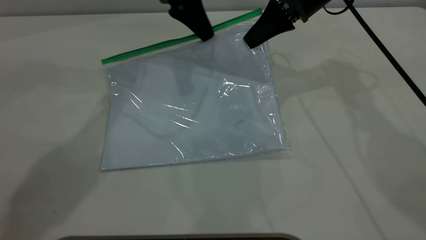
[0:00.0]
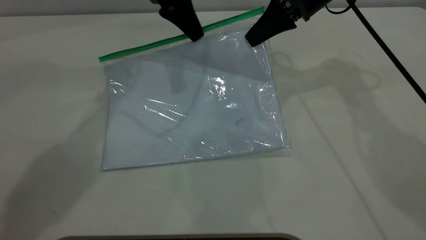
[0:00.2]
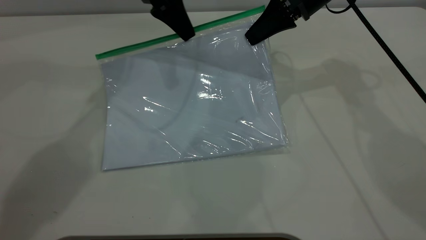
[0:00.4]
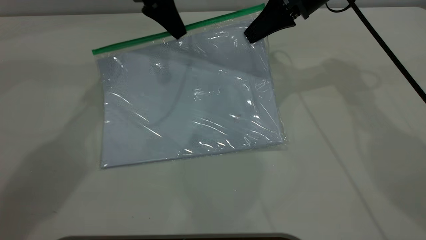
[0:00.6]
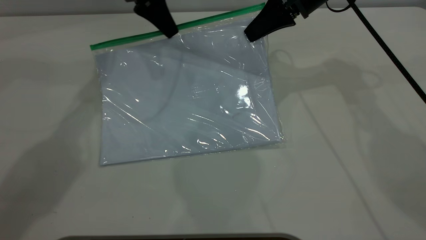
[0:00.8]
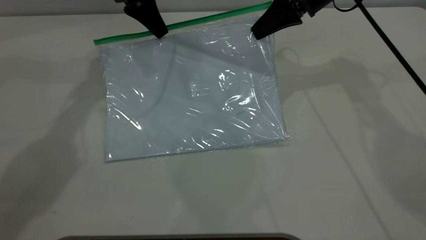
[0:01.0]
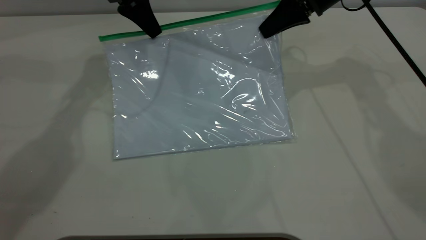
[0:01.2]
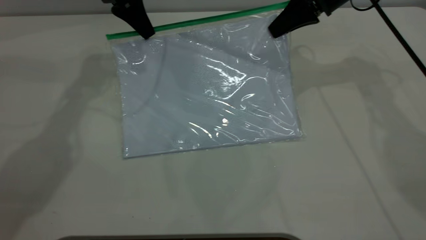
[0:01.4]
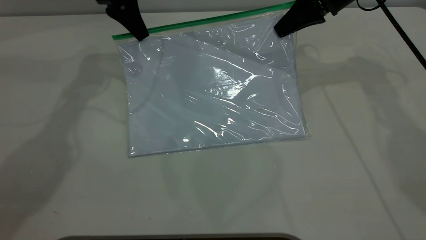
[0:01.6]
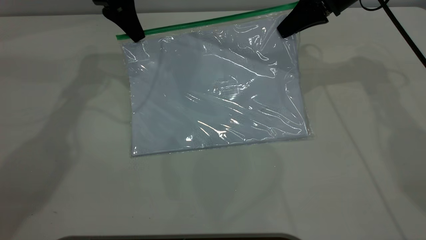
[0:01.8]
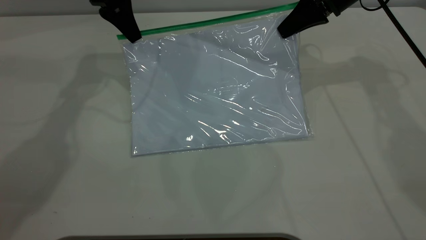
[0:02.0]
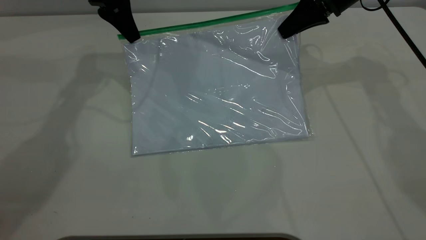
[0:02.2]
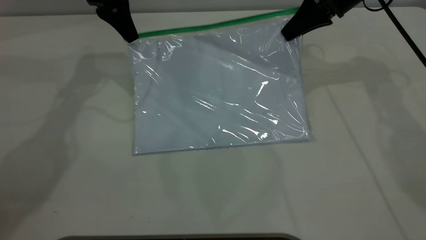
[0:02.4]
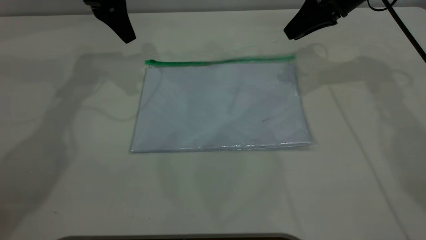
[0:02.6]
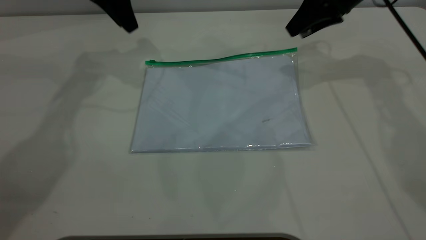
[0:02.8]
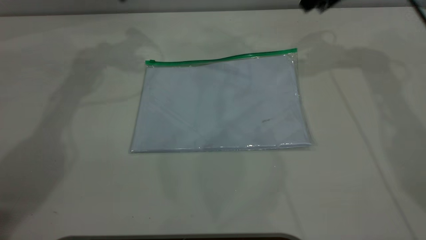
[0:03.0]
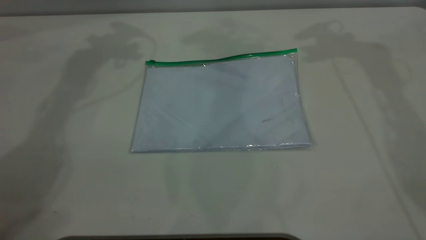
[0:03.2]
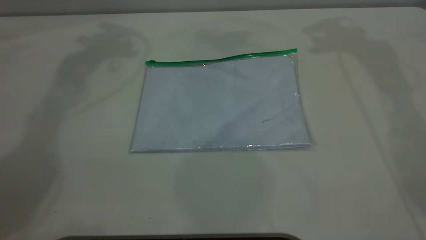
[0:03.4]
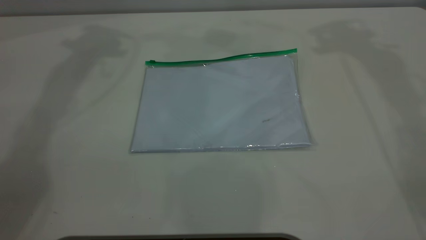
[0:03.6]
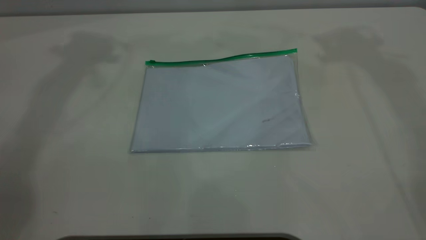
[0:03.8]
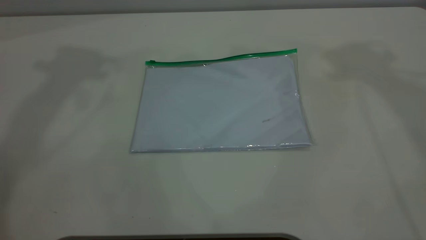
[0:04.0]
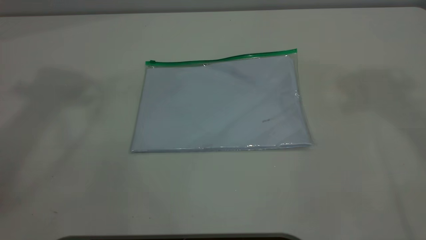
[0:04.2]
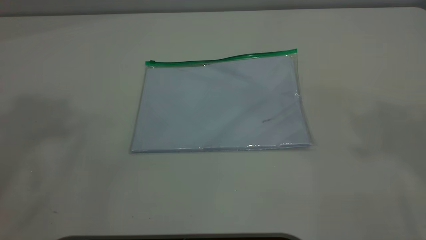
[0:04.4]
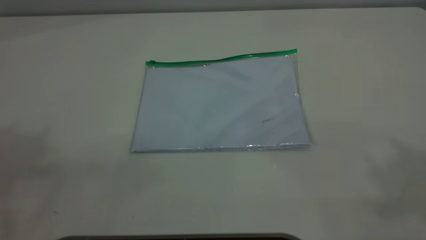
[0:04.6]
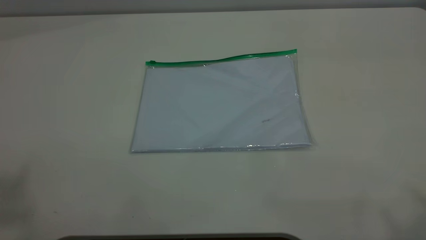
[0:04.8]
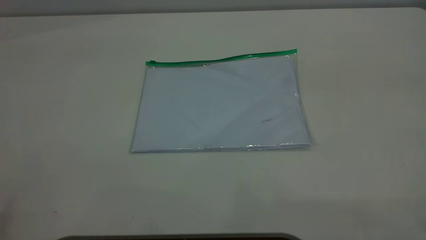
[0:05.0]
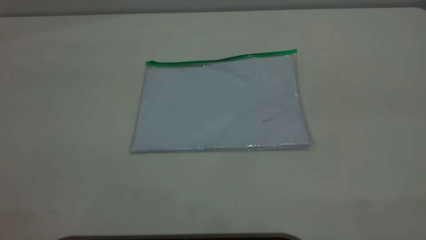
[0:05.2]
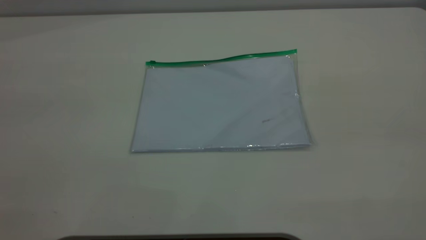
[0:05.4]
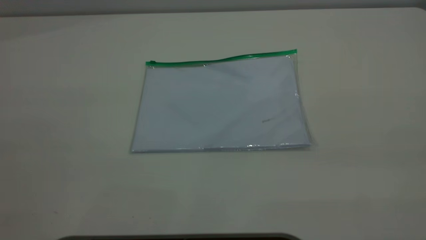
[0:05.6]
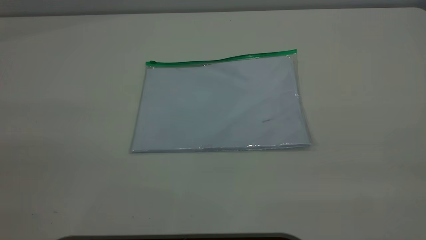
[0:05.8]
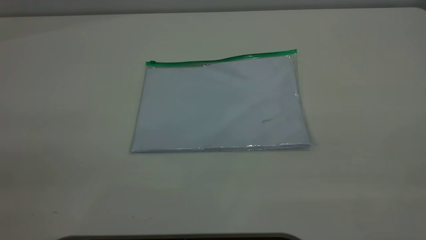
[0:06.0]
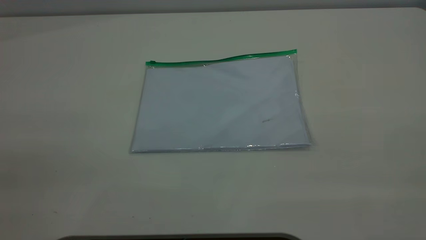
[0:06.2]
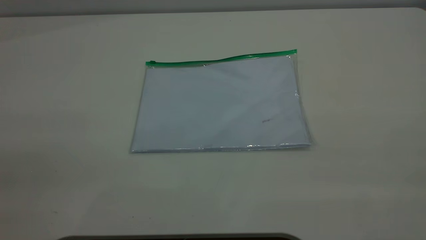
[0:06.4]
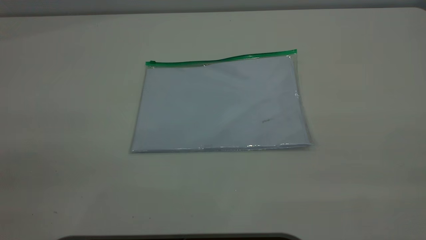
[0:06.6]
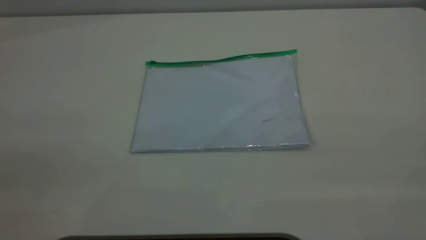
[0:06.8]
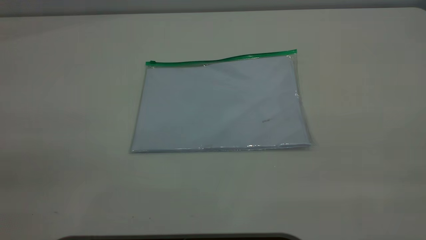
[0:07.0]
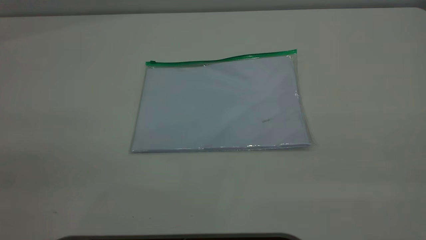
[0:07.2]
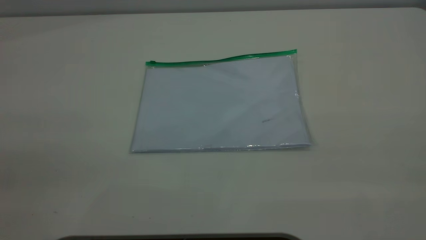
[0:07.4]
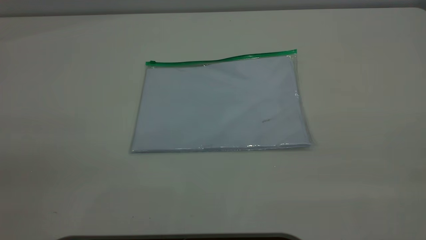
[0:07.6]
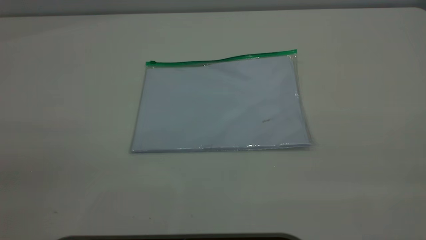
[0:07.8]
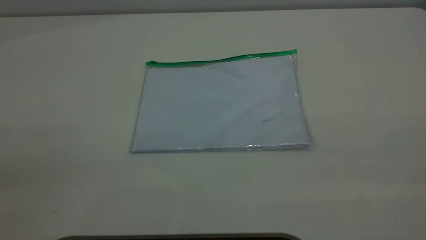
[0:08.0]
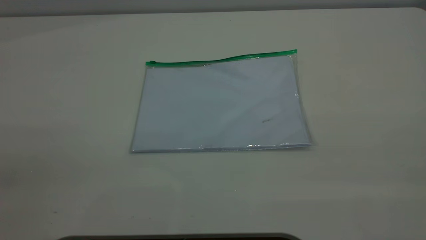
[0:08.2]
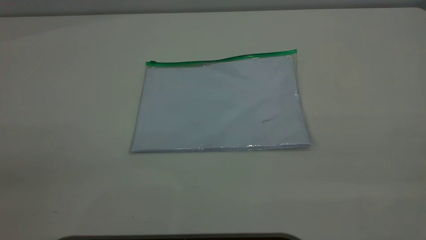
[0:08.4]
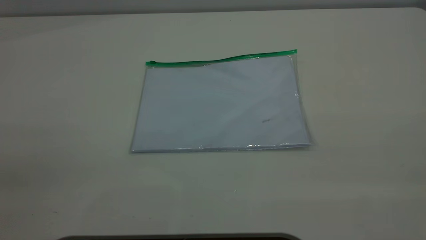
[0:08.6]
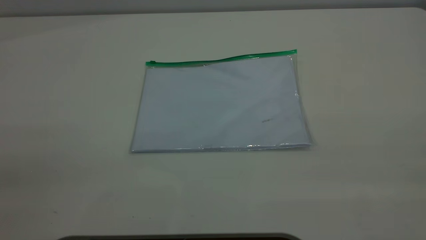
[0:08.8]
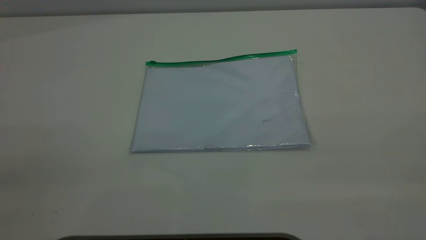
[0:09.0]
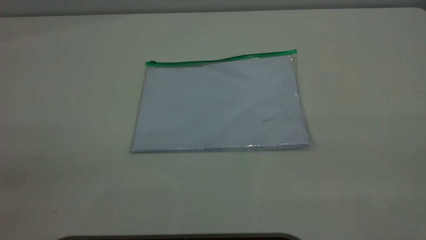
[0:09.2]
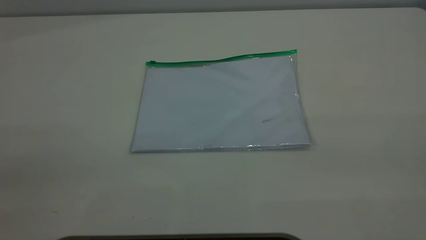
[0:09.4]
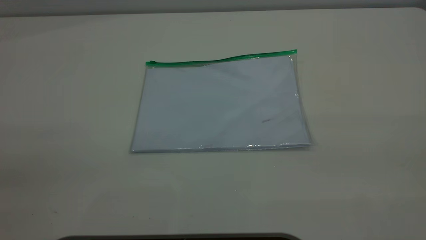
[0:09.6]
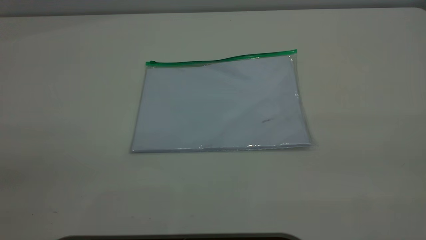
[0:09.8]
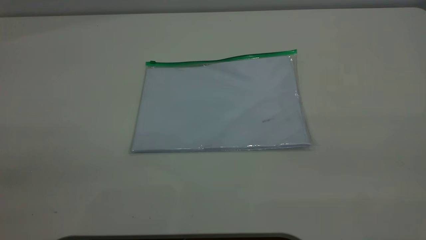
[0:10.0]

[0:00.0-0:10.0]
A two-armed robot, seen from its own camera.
Step, 0:00.0 to 0:02.4: Pulling up the zipper on the transparent plastic bag with the left gripper to close it.
0:00.0 to 0:01.4: The right gripper changes place by some 5 cm. Meanwhile the left gripper moves to the left, some 10 cm.
0:01.4 to 0:02.8: The right gripper opens its fingers, while the left gripper opens up.
0:02.8 to 0:04.2: The grippers both shift upward and backward by about 40 cm.
